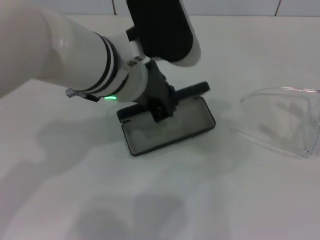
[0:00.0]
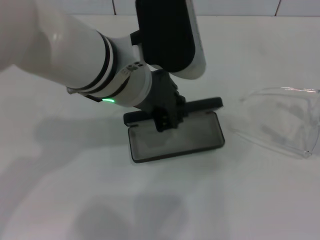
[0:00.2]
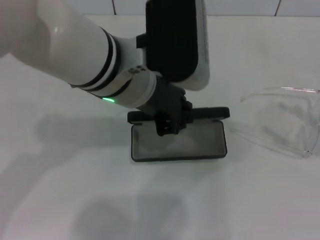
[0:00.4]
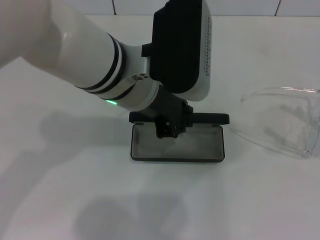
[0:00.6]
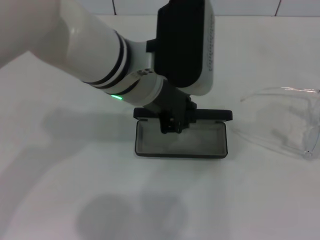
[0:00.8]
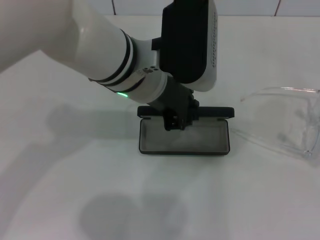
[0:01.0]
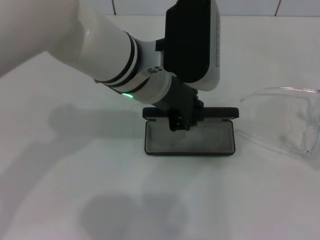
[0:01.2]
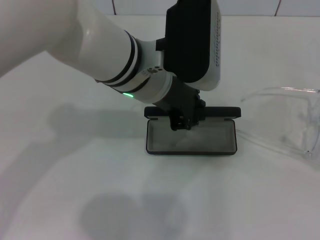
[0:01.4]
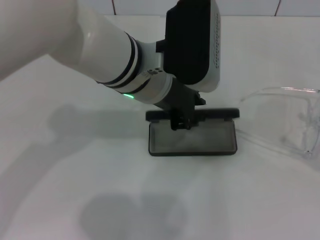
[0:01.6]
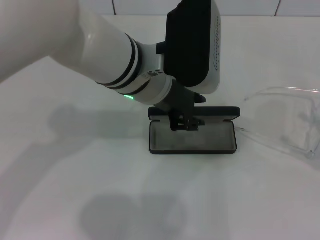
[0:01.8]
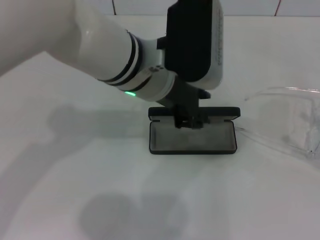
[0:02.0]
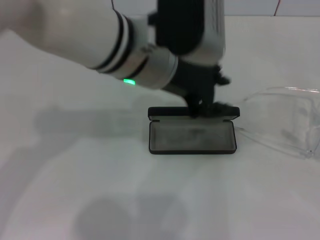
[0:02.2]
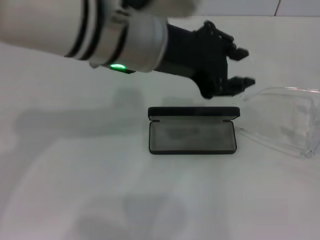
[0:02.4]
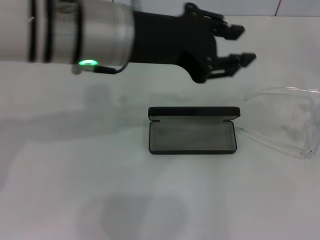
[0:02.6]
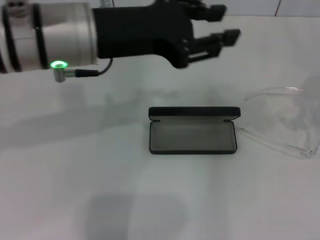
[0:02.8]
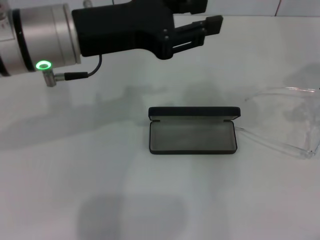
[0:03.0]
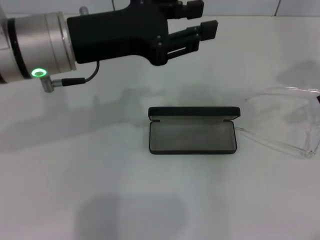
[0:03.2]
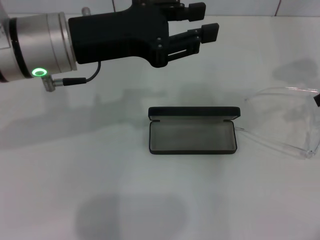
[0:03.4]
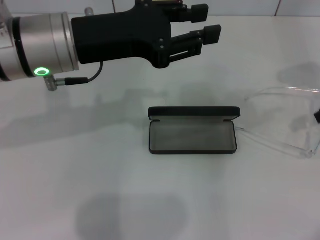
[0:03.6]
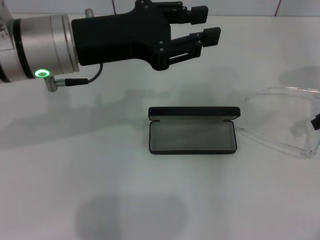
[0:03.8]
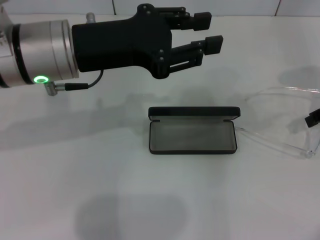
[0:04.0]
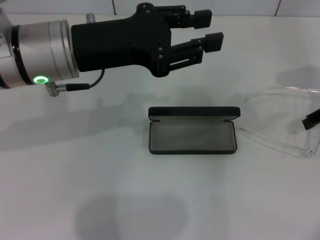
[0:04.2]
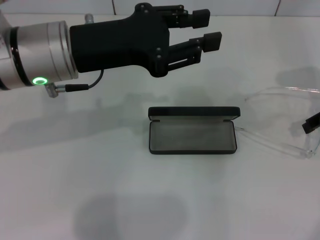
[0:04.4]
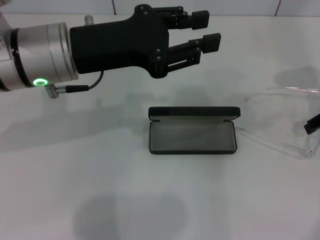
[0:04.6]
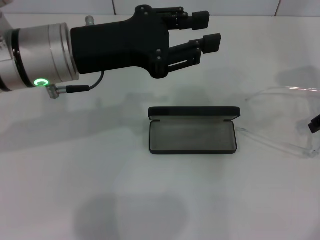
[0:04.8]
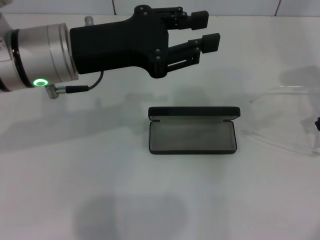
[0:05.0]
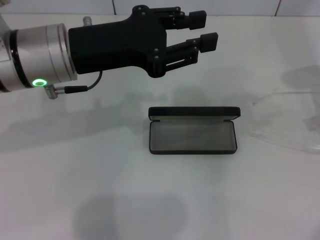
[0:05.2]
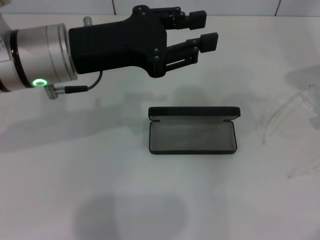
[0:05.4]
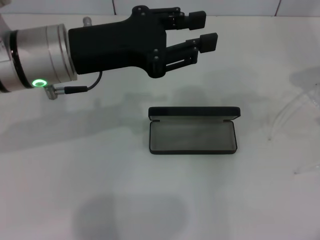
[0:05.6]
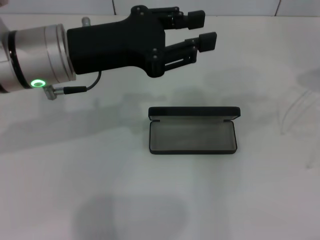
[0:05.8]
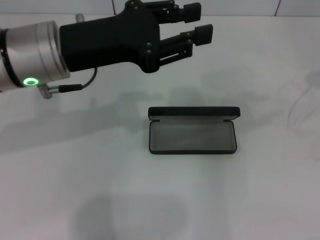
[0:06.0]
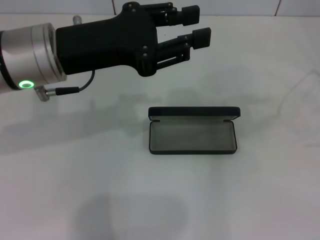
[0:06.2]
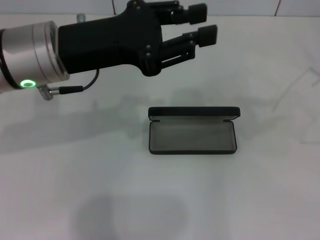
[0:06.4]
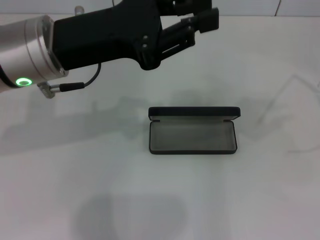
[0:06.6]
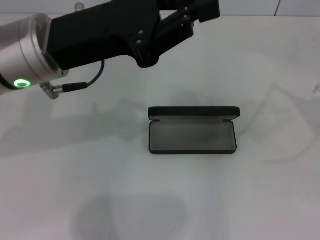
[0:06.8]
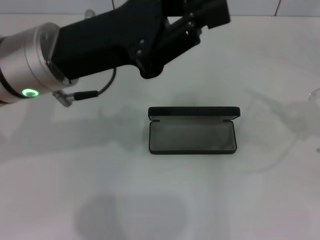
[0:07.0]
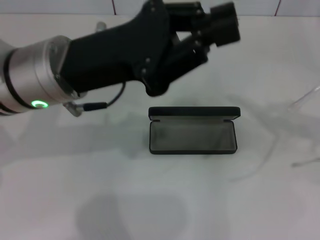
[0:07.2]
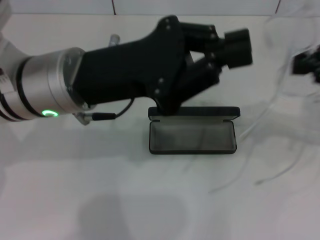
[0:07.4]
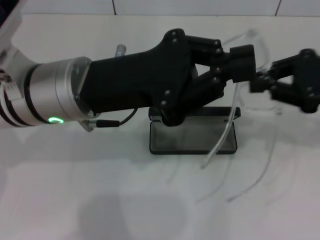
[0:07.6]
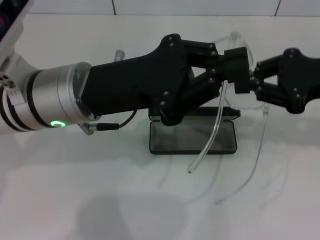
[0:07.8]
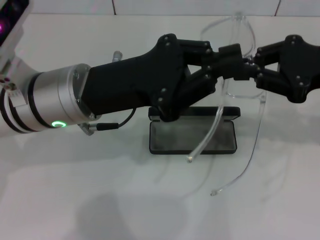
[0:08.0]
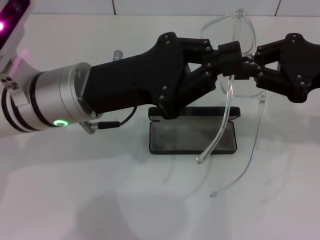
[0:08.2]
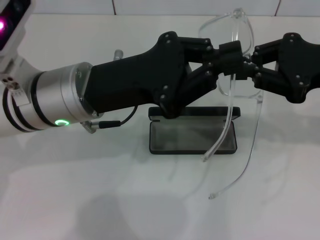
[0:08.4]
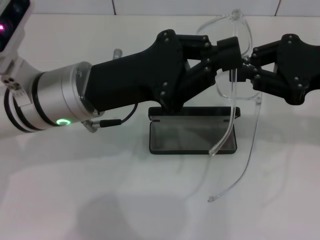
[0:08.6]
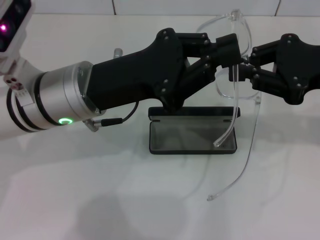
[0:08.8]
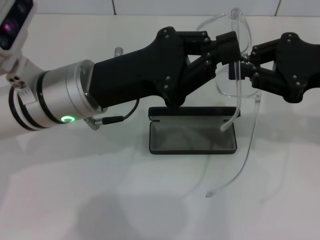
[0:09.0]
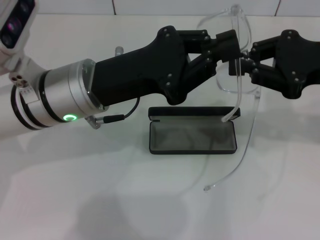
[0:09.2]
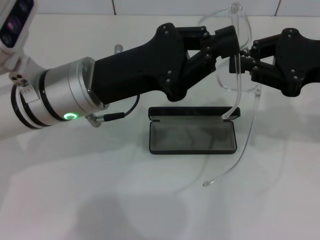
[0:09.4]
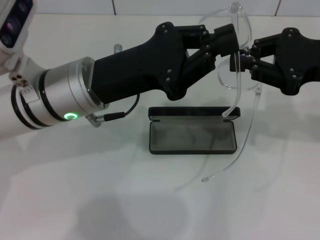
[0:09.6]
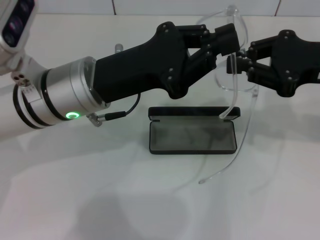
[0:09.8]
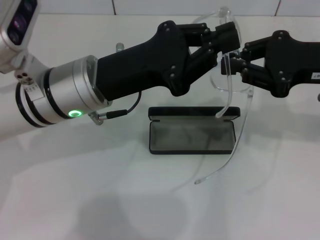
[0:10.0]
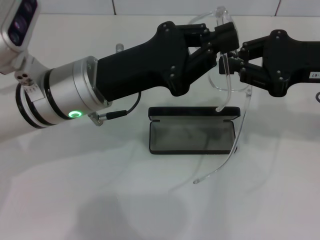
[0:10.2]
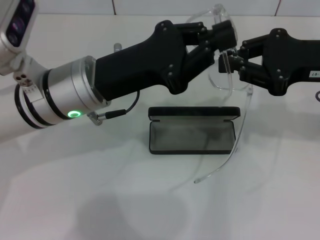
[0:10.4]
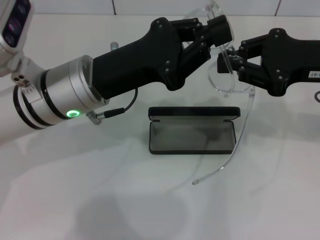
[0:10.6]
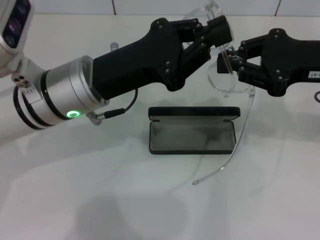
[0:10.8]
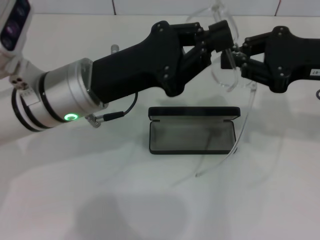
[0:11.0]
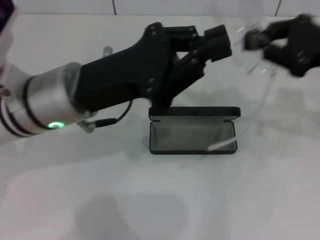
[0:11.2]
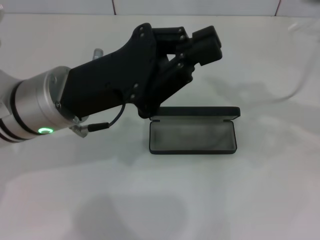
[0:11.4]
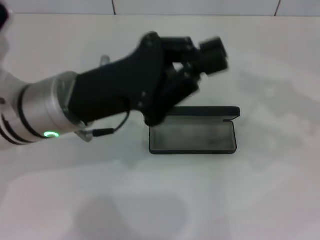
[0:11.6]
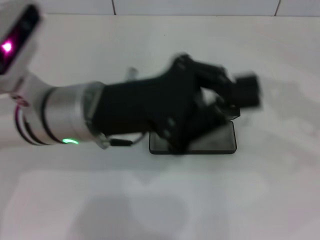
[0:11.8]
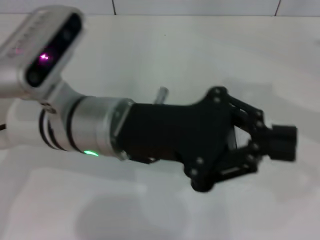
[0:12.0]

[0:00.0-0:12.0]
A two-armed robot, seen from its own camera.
Step, 0:00.0 to 0:02.0: Place the glasses case in the center of the table with your left hand.
Step, 0:02.2 to 0:05.2: Grab the eyeglass frame with your right hand.
0:01.6 to 0:03.0: The right gripper goes approximately 20 cm forward and upward, while the left gripper is displaced to the left by some 10 cm.
0:03.0 to 0:04.4: The right gripper moves downward, approximately 5 cm.
0:04.4 to 0:06.0: The right gripper moves to the right, roughly 5 cm, and closes its fingers.
0:06.0 to 0:07.6: The right gripper goes about 10 cm to the left; the left gripper closes up.
0:07.6 to 0:10.4: The grippers stay close to where they were, moving slightly.
0:10.4 to 0:12.0: The right gripper is displaced to the right by about 5 cm.

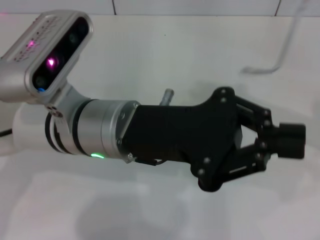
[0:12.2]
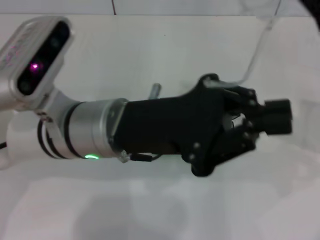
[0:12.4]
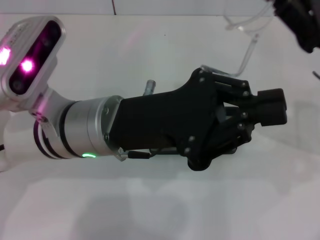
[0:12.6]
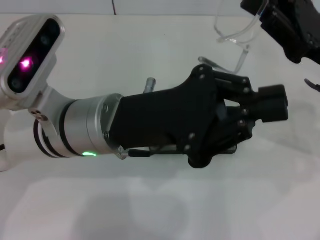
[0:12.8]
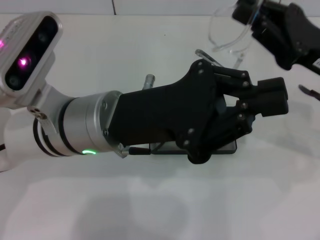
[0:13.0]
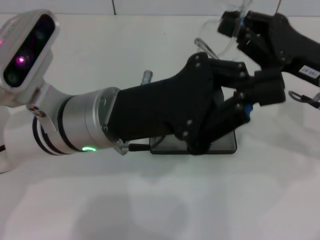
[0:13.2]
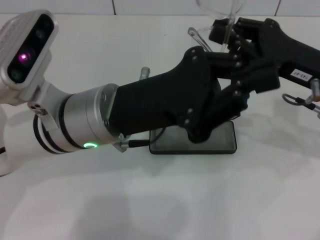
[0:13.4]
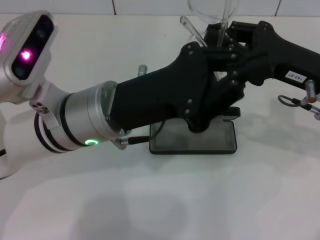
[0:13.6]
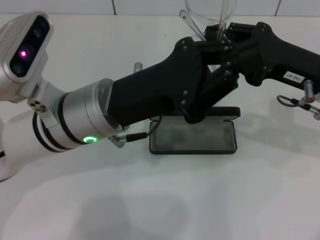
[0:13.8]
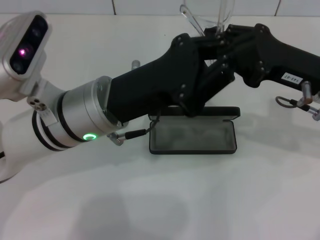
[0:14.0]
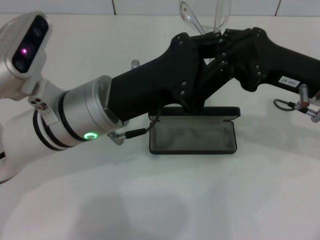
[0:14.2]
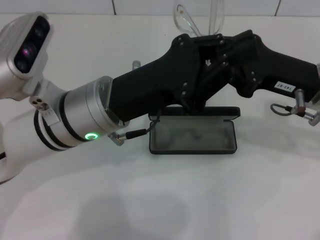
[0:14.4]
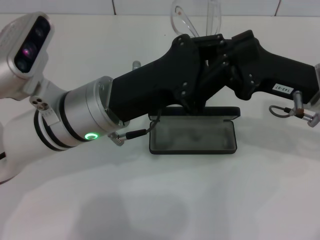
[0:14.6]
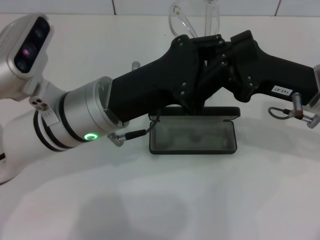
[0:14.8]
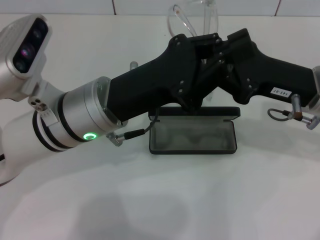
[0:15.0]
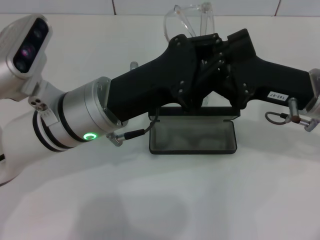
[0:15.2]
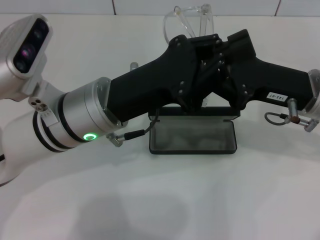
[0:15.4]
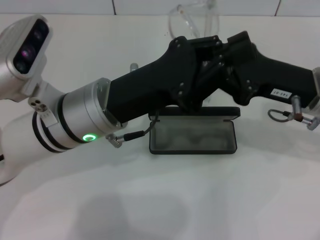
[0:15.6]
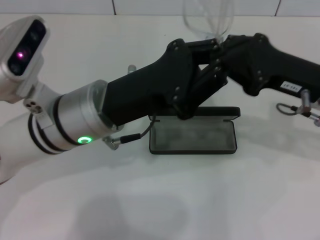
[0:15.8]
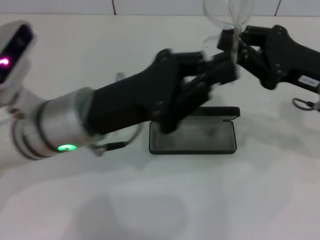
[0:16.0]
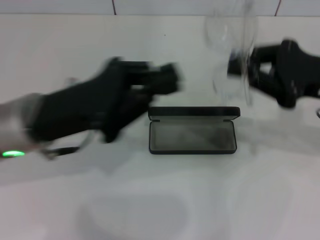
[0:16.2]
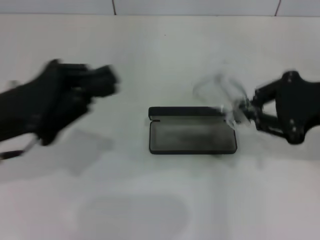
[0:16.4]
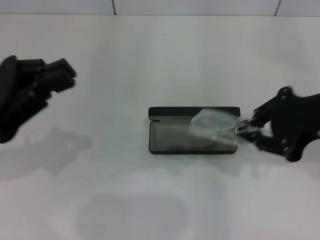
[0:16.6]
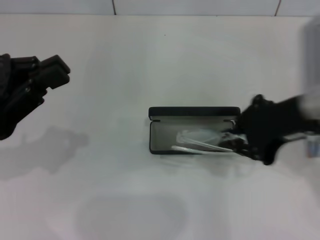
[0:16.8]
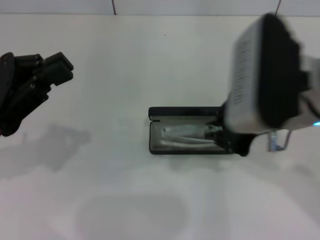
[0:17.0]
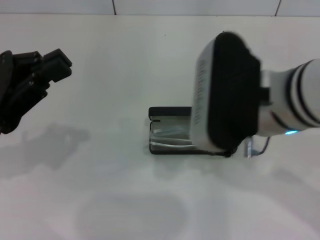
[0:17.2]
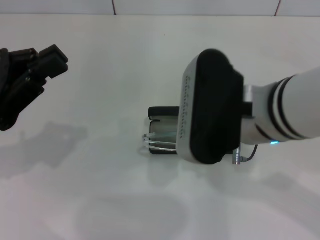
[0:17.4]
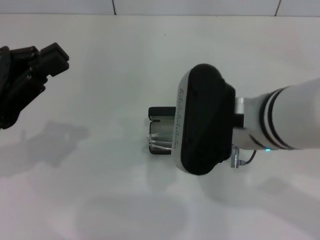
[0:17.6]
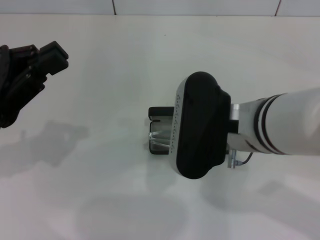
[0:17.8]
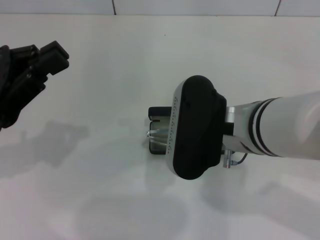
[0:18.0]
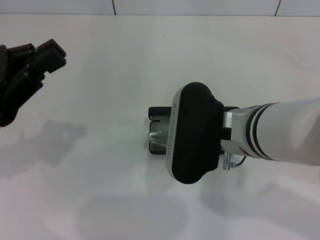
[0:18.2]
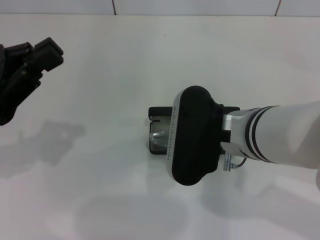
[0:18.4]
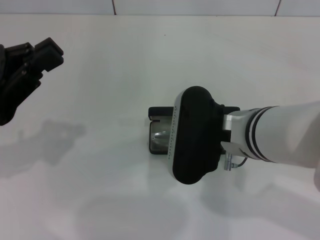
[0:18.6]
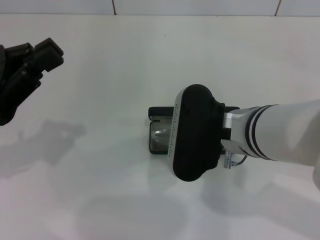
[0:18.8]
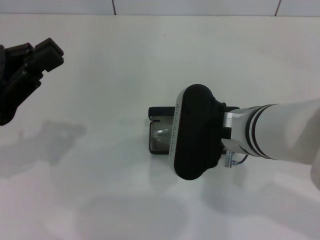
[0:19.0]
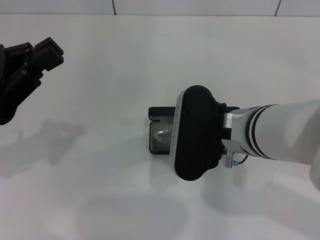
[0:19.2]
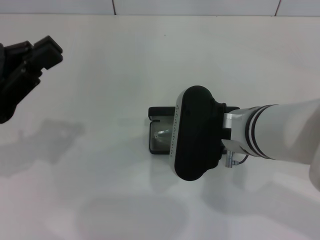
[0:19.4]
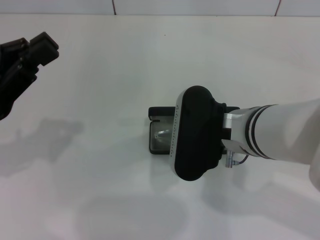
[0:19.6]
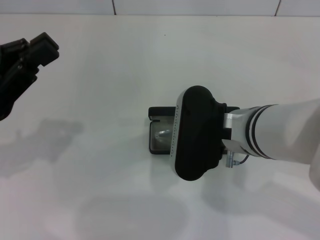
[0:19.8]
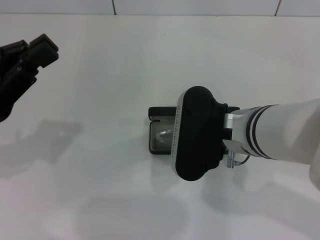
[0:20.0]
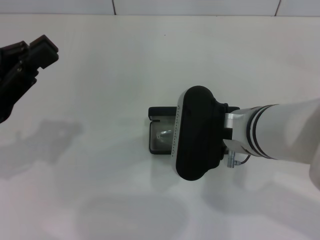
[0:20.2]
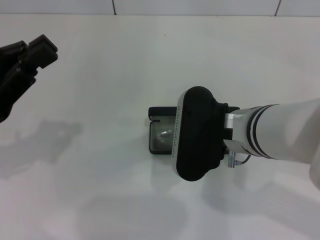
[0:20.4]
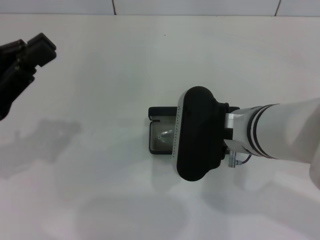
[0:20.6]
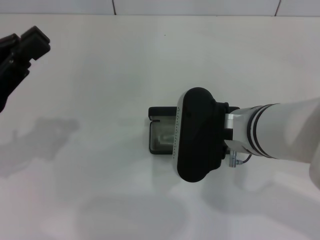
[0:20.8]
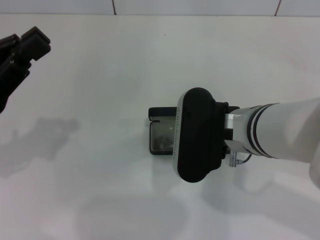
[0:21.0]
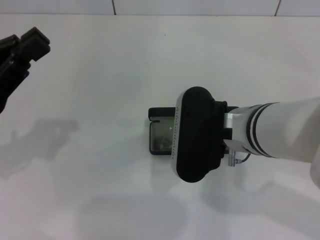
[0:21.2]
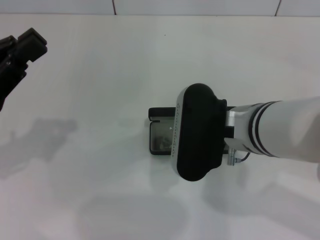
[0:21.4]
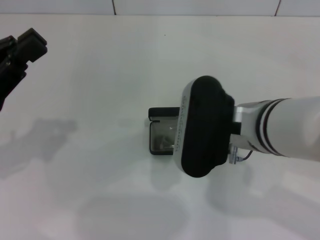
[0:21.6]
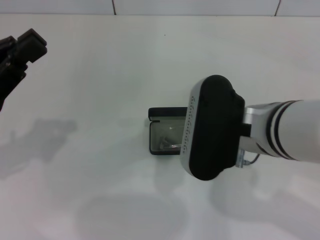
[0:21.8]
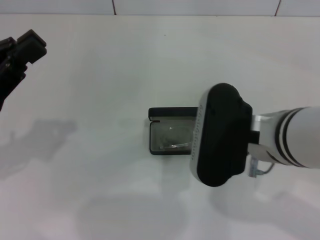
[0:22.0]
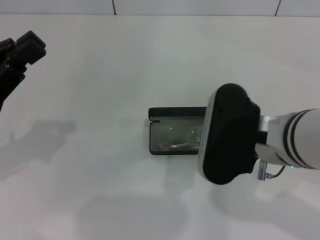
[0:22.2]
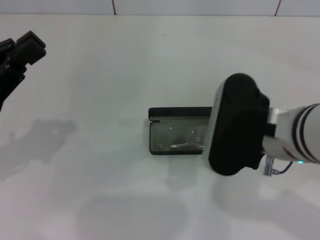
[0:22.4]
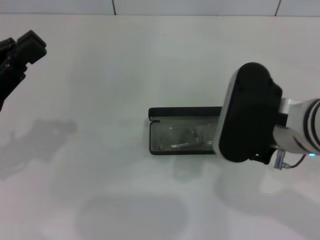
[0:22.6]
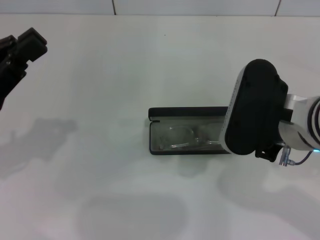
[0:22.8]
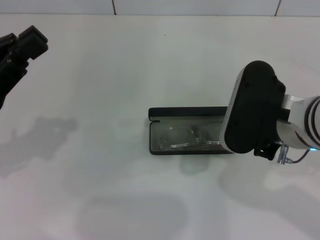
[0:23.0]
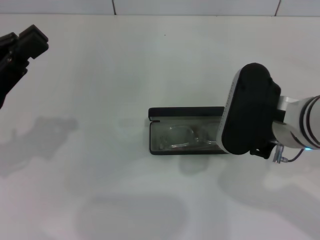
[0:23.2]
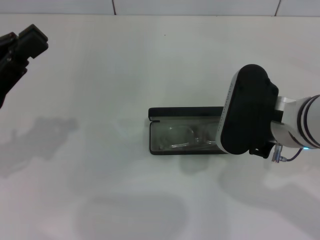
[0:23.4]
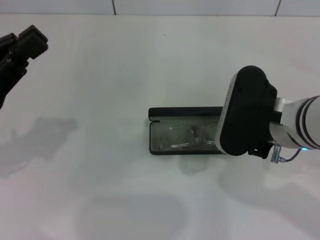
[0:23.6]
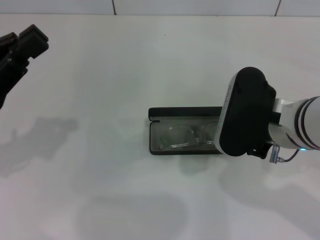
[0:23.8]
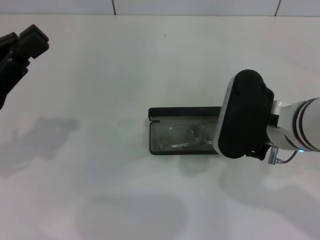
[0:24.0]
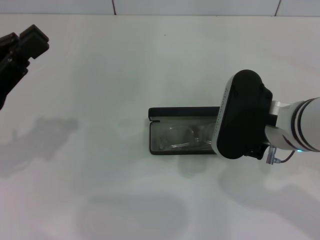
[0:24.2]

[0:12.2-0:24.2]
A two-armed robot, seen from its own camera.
Step, 0:12.2 to 0:15.6: Fold the frame with your left hand.
Step, 0:15.8 to 0:21.4: Put the glasses into the case with your right hand.
0:12.2 to 0:13.8: The right gripper travels to the left by approximately 5 cm.
0:13.8 to 0:15.2: The grippers move only a little.
0:15.2 to 0:16.6: The right gripper is displaced upward by some 10 cm, while the left gripper heads to the left, covering approximately 15 cm.
0:16.6 to 0:18.2: The right gripper moves to the left, some 15 cm.
0:18.2 to 0:19.8: The grippers stay close to where they were, moving slightly.
0:19.8 to 0:21.2: Both grippers stay put.
0:21.2 to 0:22.6: The right gripper changes place by approximately 5 cm.
0:22.6 to 0:24.2: The grippers make only small movements.
